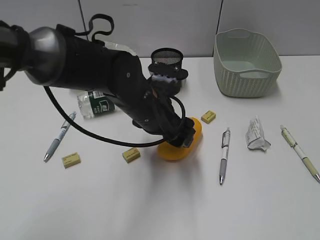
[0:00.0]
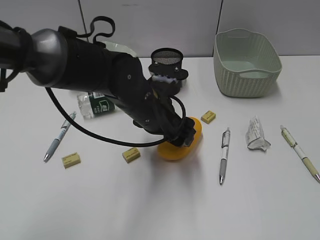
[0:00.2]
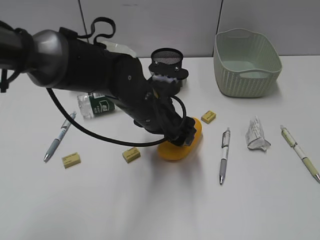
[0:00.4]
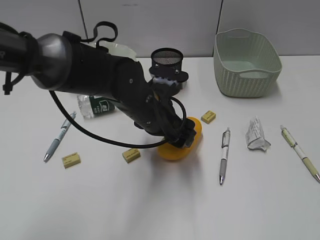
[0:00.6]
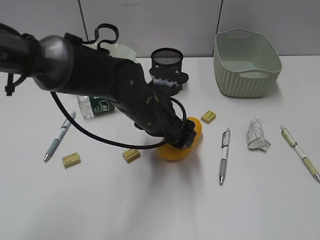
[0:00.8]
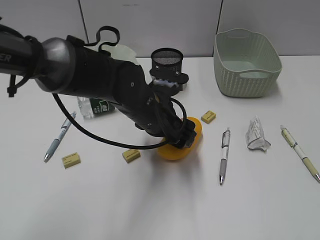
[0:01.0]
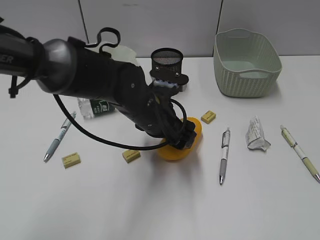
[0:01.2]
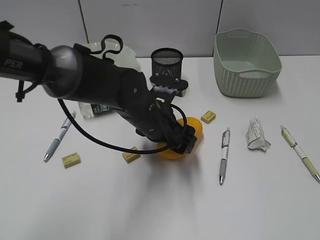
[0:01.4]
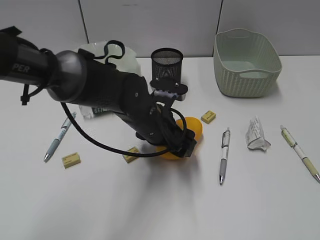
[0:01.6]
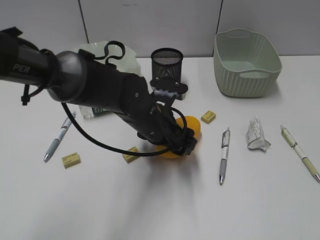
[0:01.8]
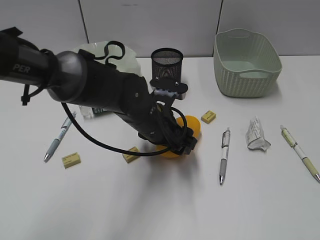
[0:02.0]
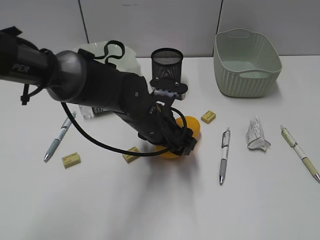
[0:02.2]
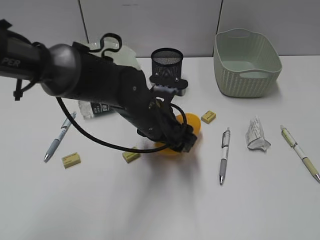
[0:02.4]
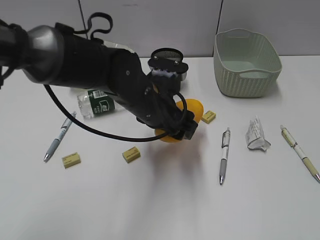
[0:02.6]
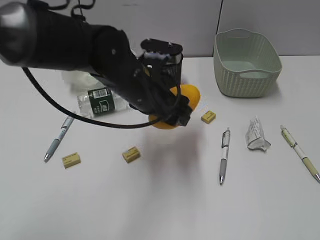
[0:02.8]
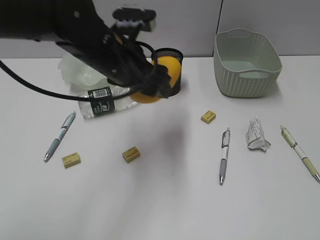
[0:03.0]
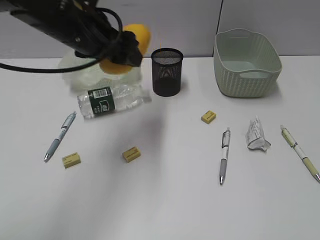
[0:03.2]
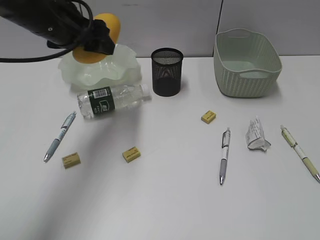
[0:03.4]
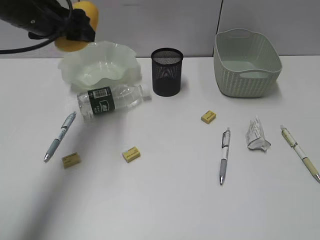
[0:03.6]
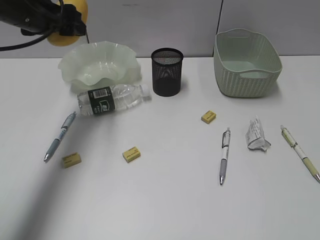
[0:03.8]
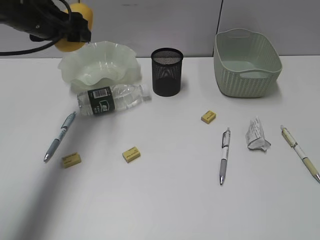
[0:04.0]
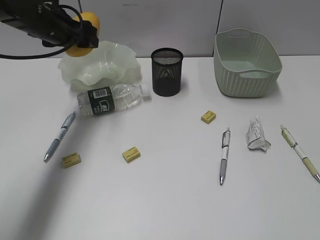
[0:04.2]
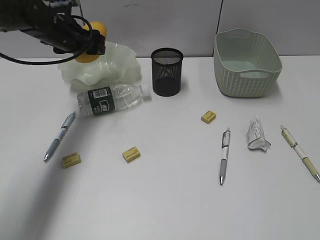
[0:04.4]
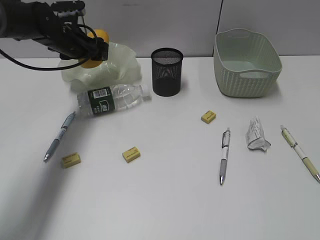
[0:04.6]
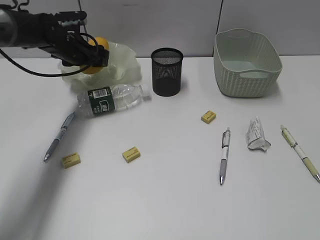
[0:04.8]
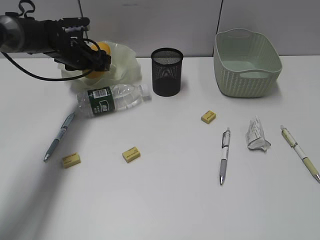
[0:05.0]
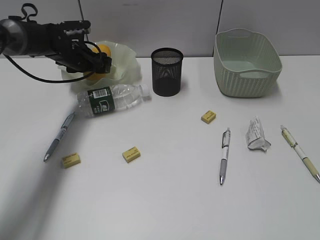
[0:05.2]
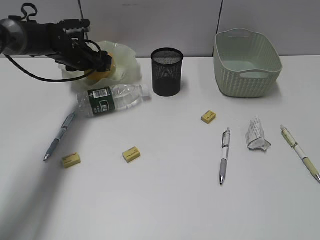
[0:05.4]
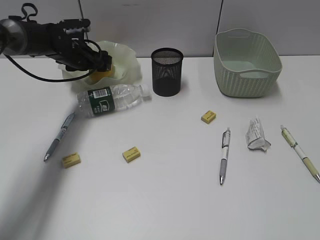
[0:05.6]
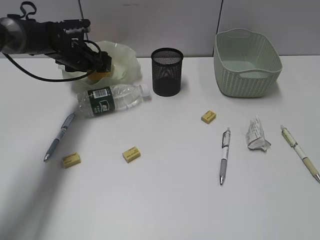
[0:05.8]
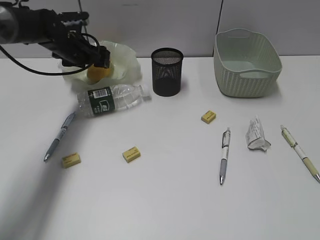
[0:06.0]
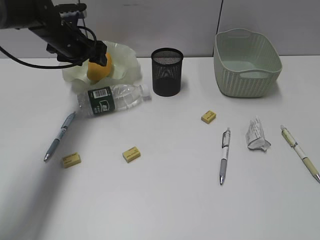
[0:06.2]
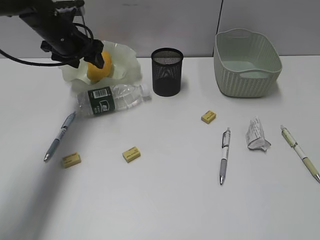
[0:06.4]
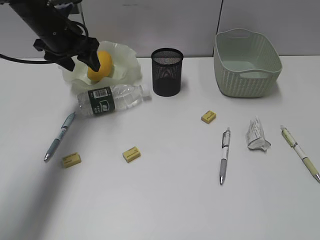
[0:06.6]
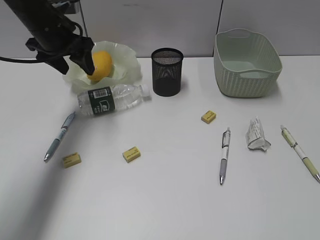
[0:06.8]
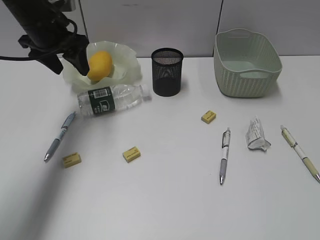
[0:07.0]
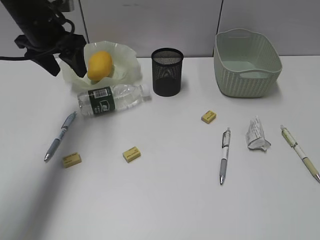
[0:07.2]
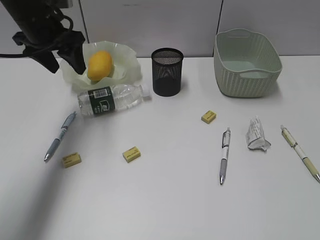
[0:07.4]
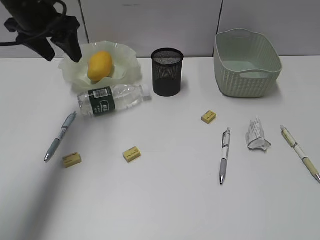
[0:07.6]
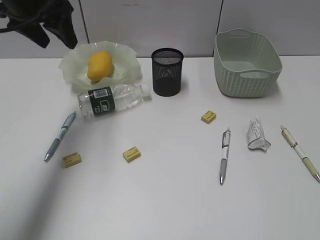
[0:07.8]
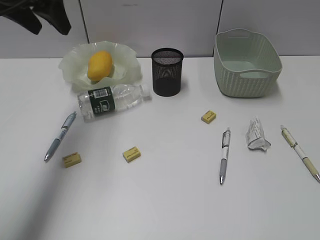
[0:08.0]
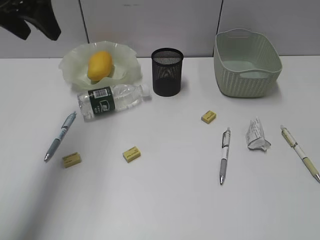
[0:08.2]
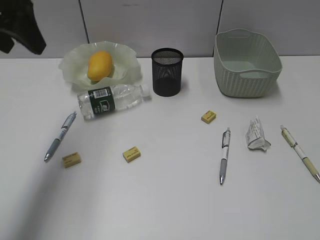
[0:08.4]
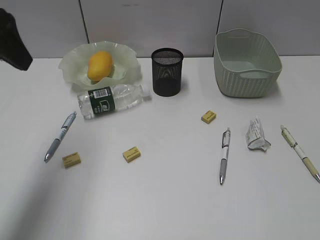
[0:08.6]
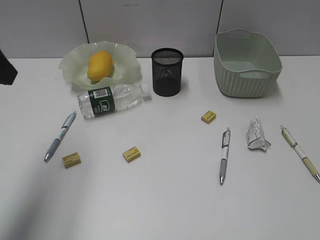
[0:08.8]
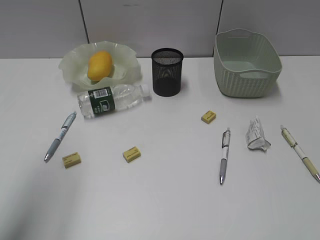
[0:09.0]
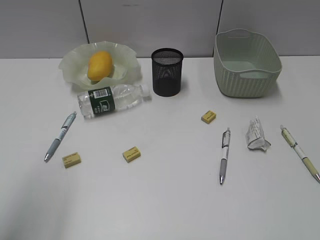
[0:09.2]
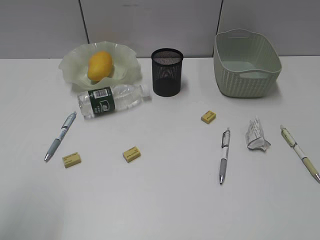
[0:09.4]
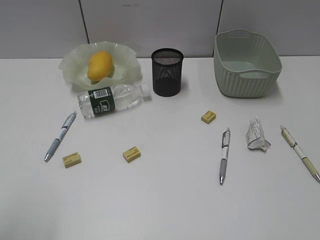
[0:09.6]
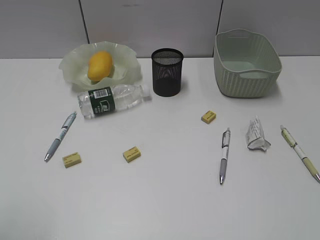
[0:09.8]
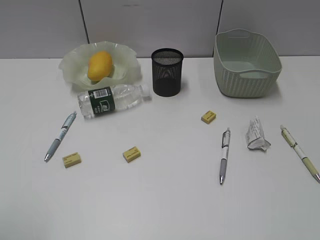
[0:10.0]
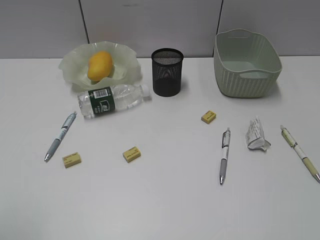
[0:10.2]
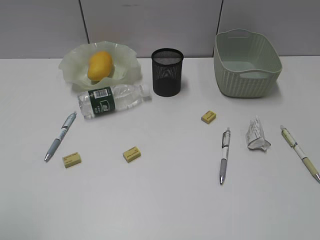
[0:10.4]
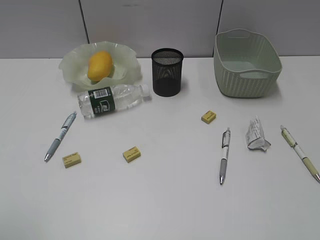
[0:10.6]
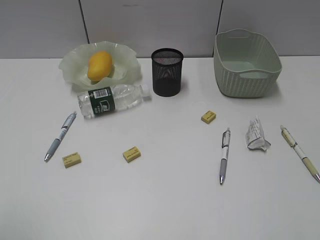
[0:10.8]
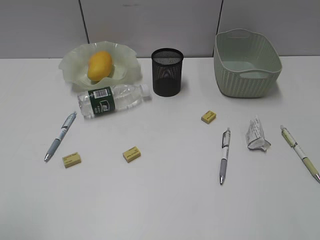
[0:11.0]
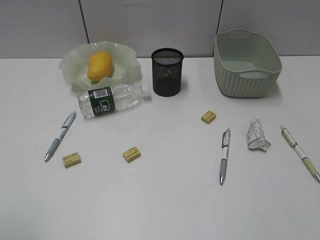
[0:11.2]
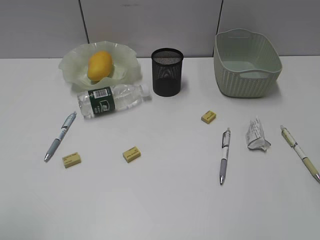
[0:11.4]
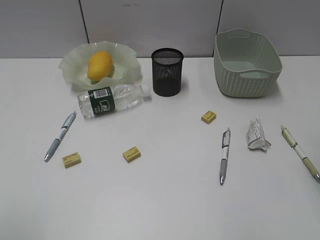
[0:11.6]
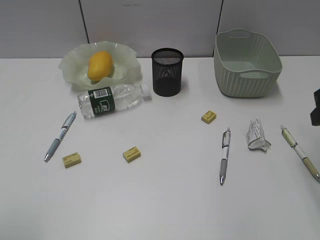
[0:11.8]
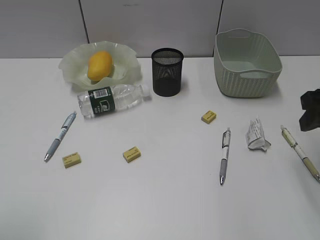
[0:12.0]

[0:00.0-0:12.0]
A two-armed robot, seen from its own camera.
Step, 0:00.0 to 0:02.0: Grasp the mango with left gripper.
Step, 0:02.2 to 0:06.6: Place the mango in the plate with left gripper.
0:00.0 to 0:01.6: The grippers move only a little.
0:01.6 to 0:03.0: The left gripper is displaced upward and to the left by approximately 15 cm.
0:03.0 to 0:04.4: The left gripper travels forward and to the left by approximately 20 cm.
0:06.0 to 0:07.6: The left gripper heads upward and backward, covering roughly 15 cm.
0:07.6 to 0:09.0: The left gripper is displaced backward by approximately 25 cm.
0:09.0 to 0:10.4: The left gripper moves backward, approximately 15 cm.
0:10.4 to 0:12.0: The right gripper heads forward, covering approximately 25 cm.

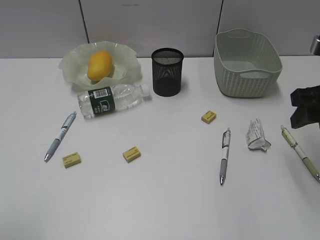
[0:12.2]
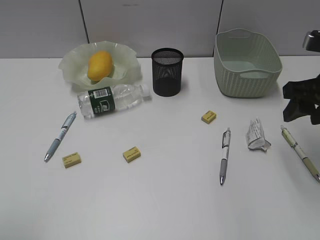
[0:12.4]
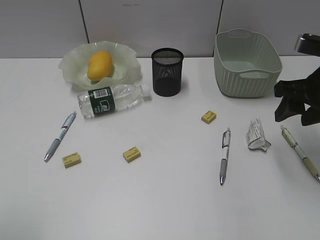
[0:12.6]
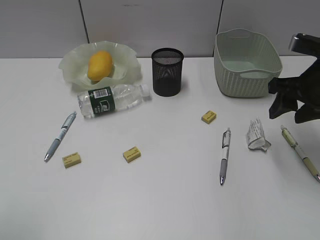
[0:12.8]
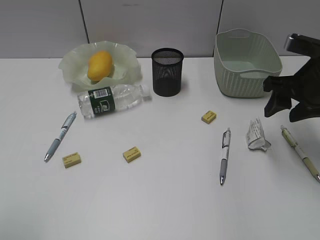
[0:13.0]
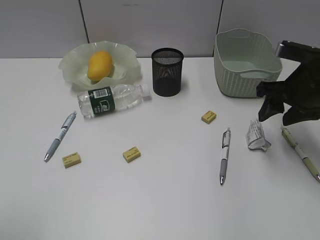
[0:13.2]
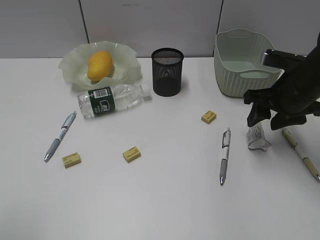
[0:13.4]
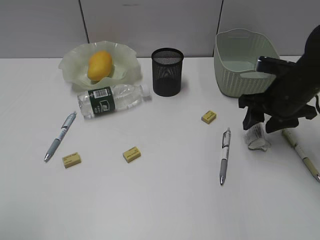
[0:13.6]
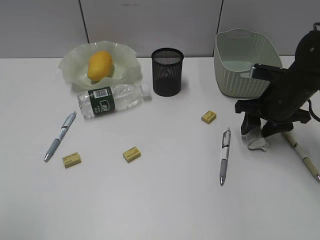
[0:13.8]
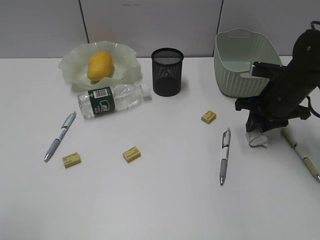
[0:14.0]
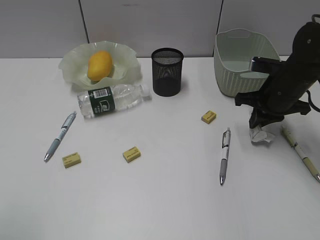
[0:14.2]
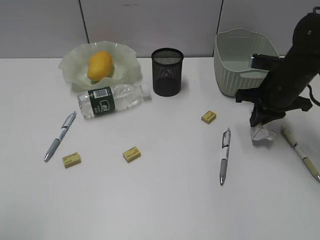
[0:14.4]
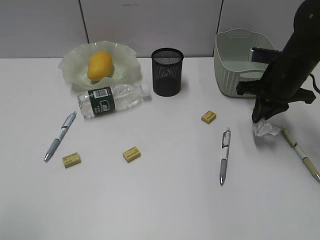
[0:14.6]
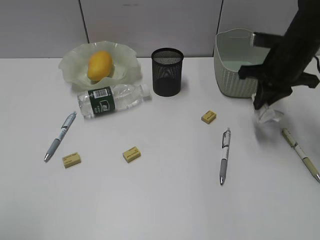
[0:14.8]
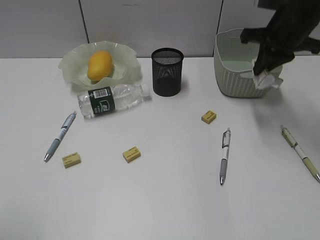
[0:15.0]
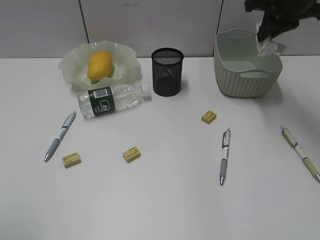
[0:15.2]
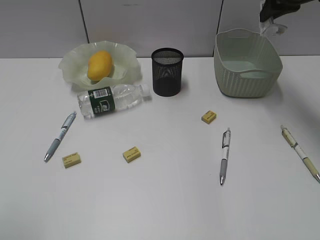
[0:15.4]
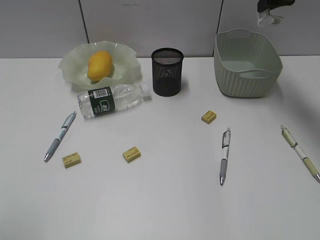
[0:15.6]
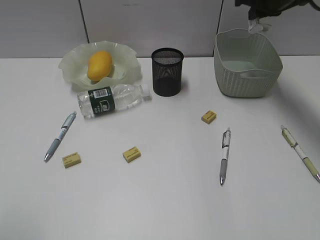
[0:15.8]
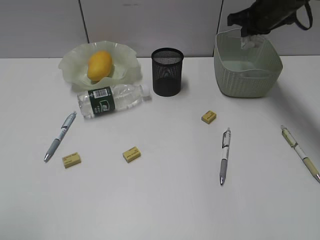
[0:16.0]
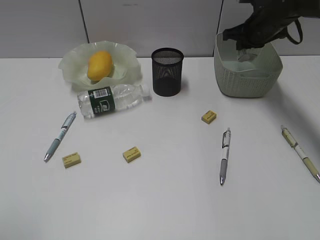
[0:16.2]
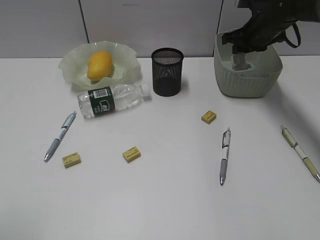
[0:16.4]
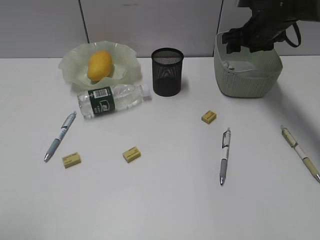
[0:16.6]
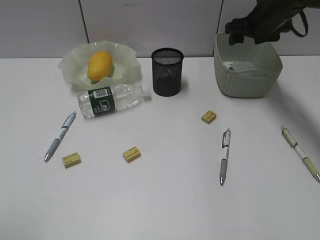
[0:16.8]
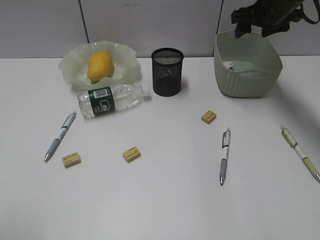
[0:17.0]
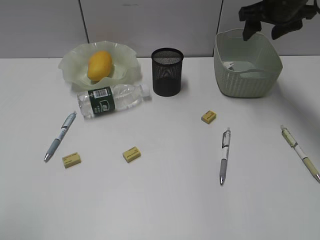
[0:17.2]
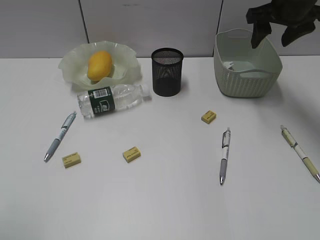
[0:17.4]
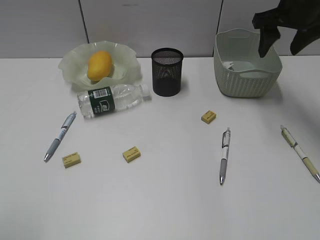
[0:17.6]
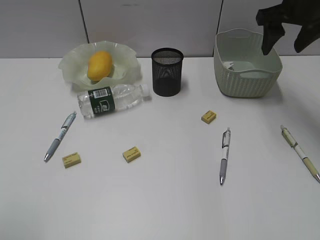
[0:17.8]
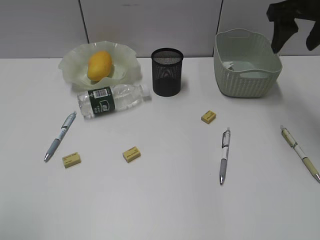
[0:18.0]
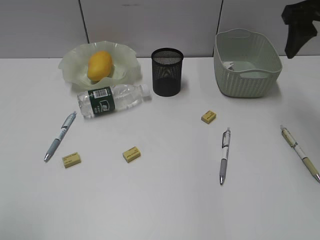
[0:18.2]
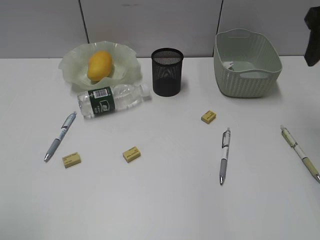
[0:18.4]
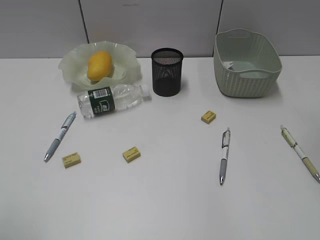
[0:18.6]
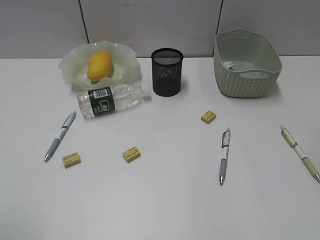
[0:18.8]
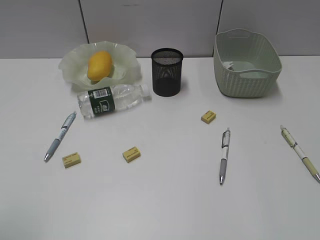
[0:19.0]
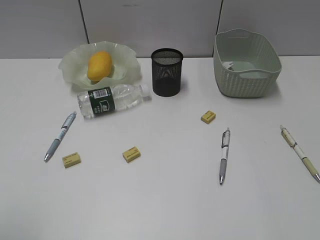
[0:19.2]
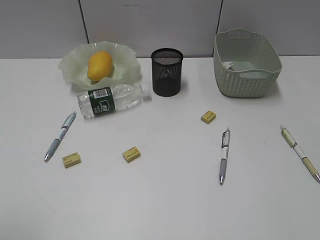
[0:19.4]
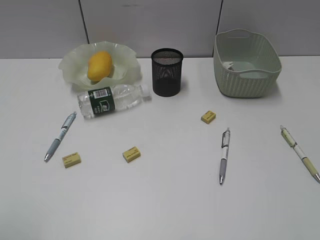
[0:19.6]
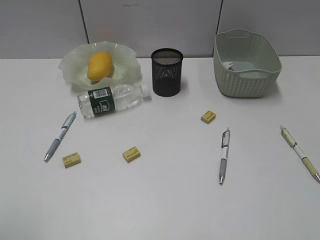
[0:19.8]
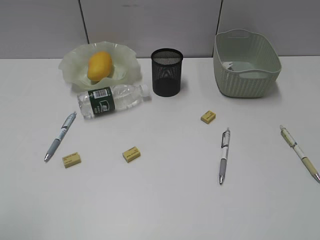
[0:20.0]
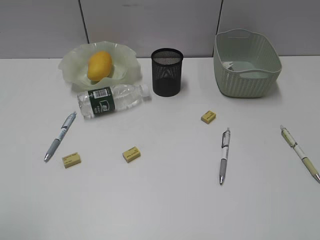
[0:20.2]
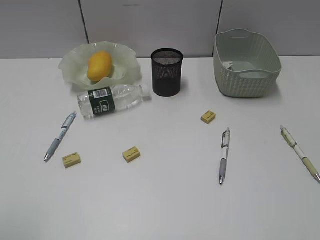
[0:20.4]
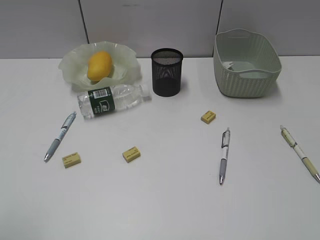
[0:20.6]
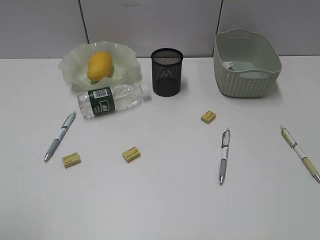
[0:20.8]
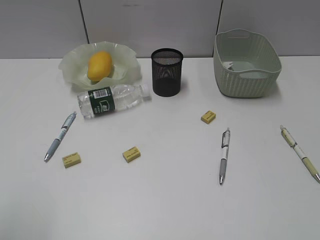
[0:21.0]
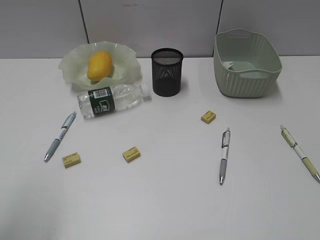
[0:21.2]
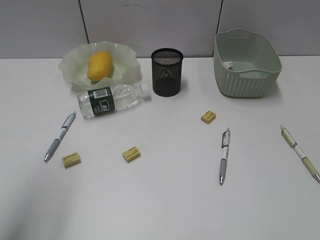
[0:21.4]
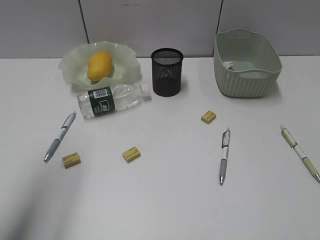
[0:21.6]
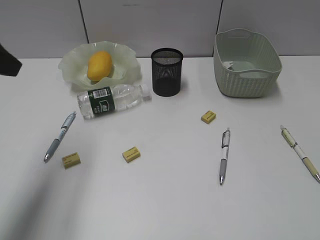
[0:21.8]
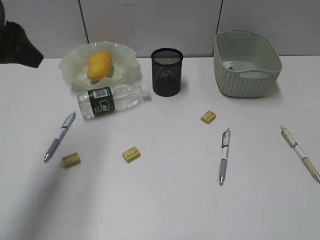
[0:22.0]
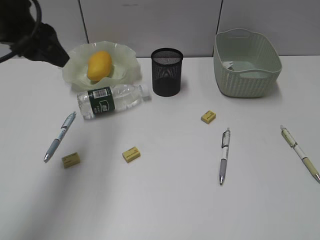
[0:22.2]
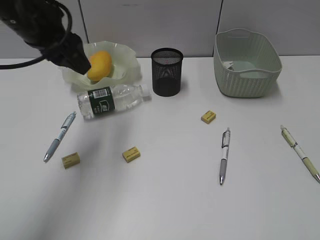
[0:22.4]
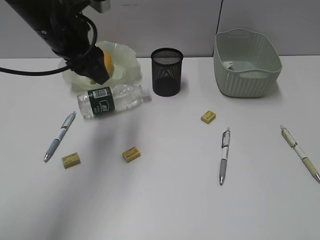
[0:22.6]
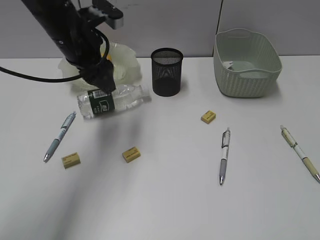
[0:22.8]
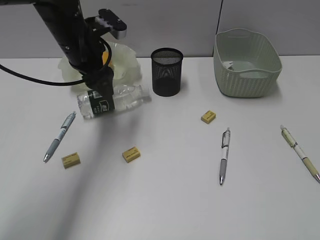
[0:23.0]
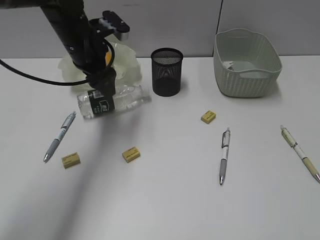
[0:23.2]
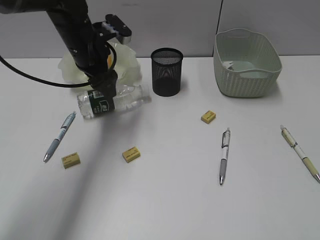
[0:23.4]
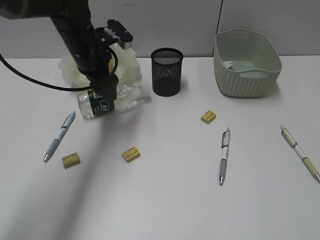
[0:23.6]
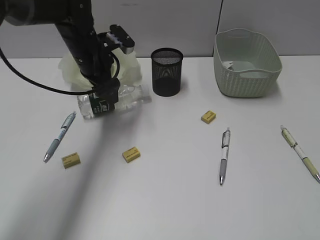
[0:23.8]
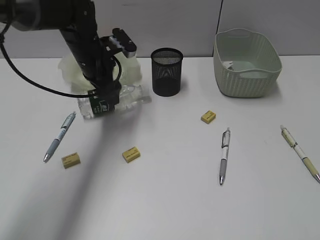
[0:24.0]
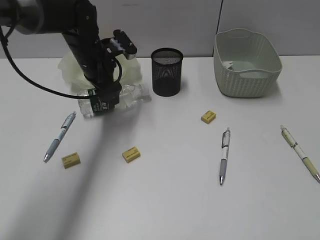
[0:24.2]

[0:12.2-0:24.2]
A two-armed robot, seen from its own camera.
Step, 0:12.2 to 0:14.2: Grasp the waste paper with right gripper.
Step, 0:14.4 to 0:16.6: Place the waste paper in the basket with right gripper.
0:12.2 to 0:13.8: The right gripper goes approximately 15 cm downward and forward.
0:13.8 to 0:15.2: The right gripper is displaced upward and forward by about 20 cm, and closes up.
0:15.2 to 0:16.6: The right gripper shifts some 15 cm downward and forward, and opens.
0:16.6 to 0:18.2: The right gripper travels backward and upward by some 20 cm.
0:18.2 to 0:19.8: The right gripper shifts roughly 30 cm backward.
0:21.2 to 0:22.6: The left gripper goes approximately 30 cm forward and to the right.
0:22.6 to 0:24.2: The left gripper shifts approximately 15 cm downward and forward.
